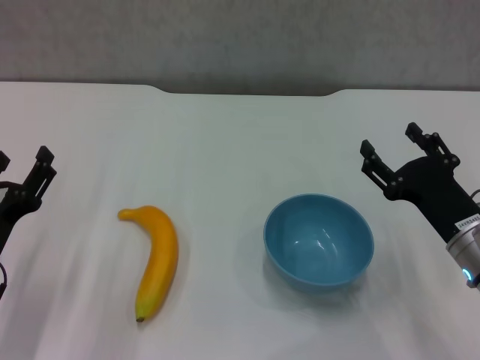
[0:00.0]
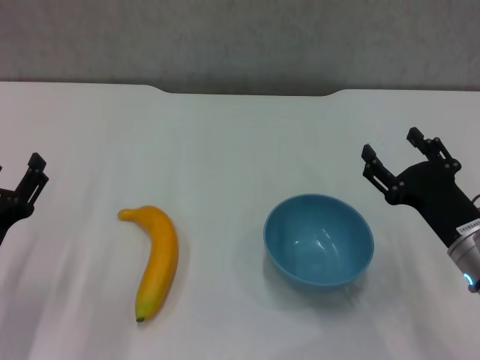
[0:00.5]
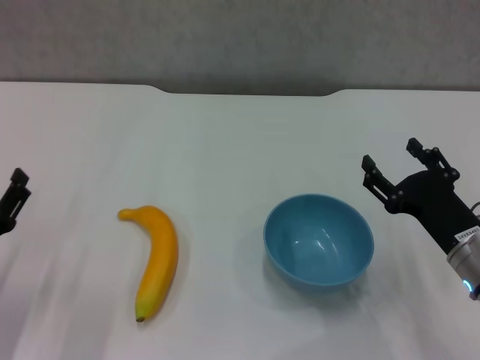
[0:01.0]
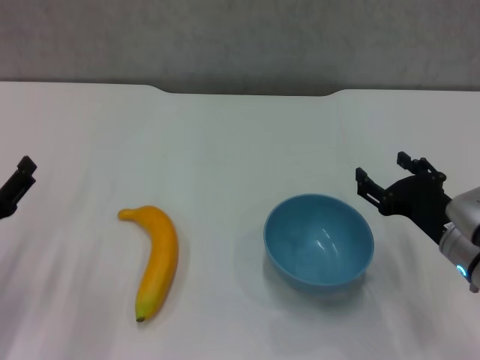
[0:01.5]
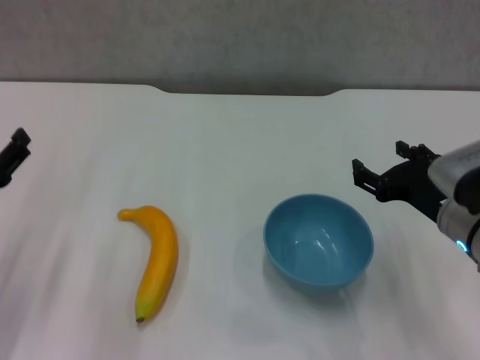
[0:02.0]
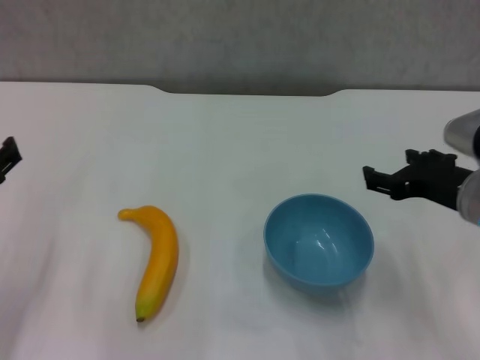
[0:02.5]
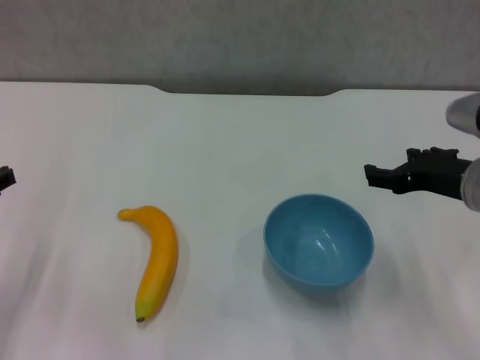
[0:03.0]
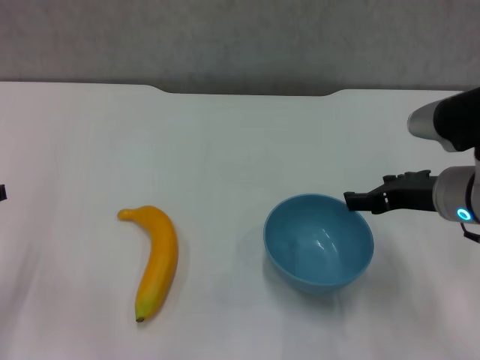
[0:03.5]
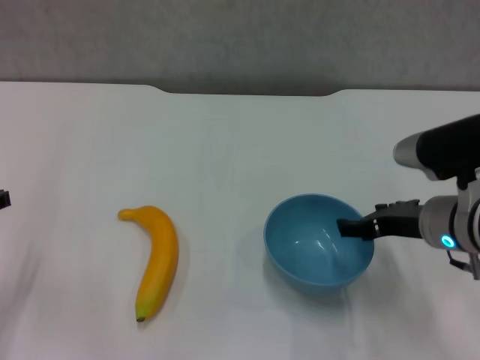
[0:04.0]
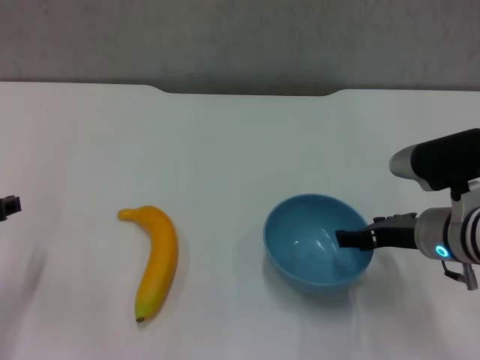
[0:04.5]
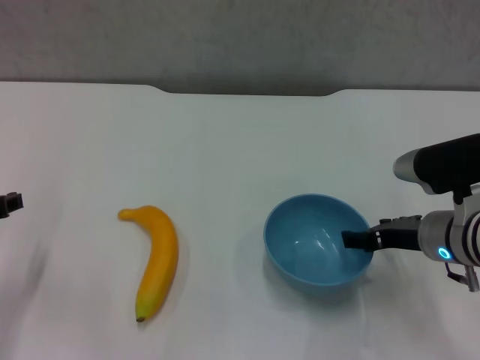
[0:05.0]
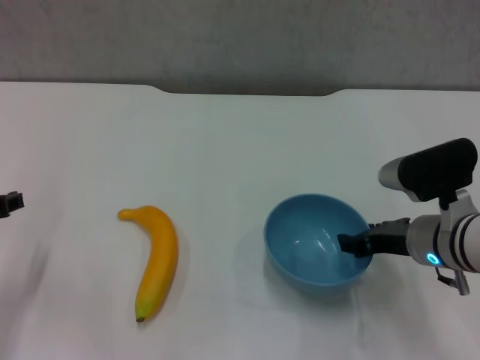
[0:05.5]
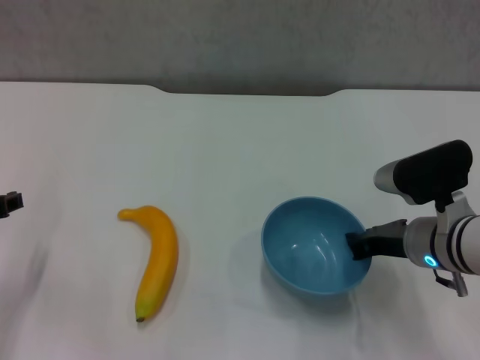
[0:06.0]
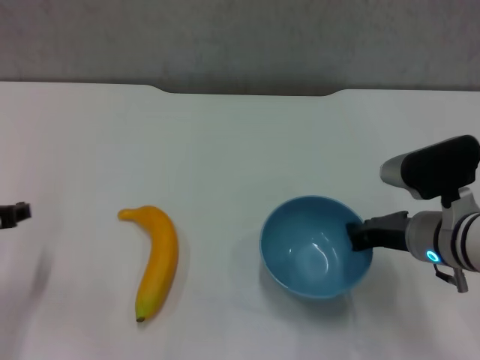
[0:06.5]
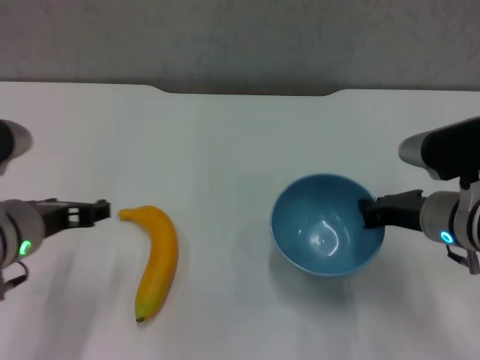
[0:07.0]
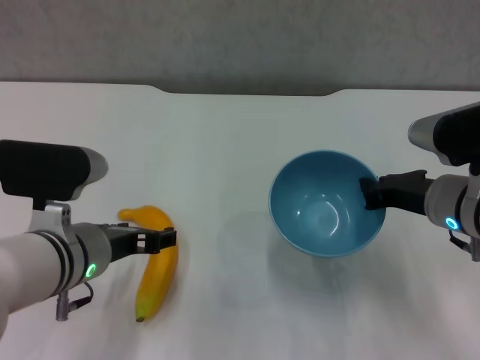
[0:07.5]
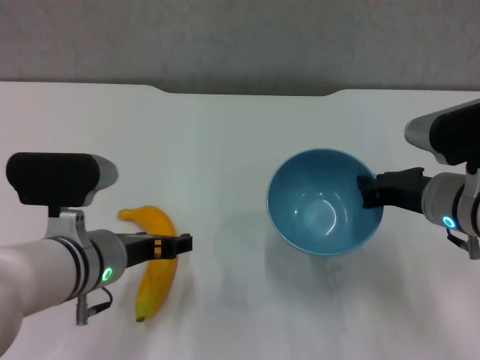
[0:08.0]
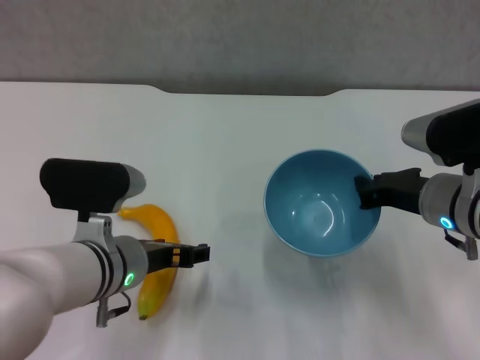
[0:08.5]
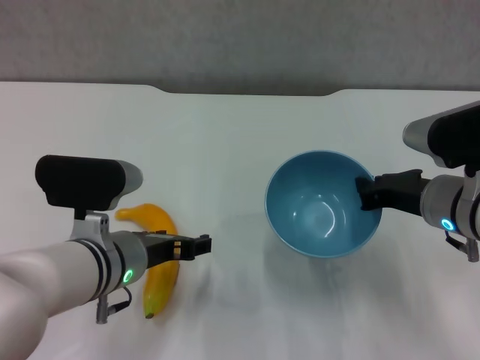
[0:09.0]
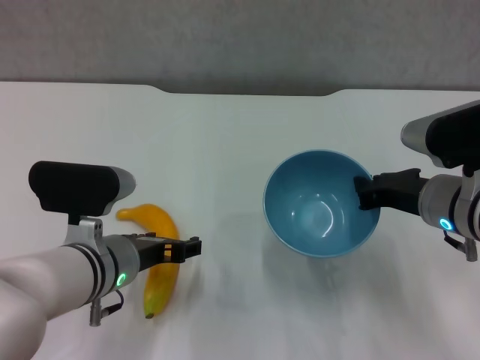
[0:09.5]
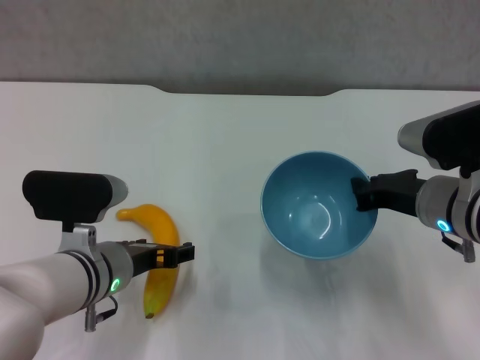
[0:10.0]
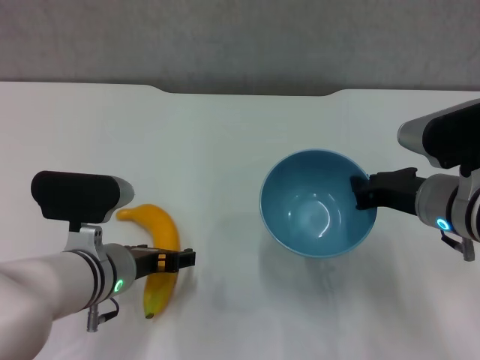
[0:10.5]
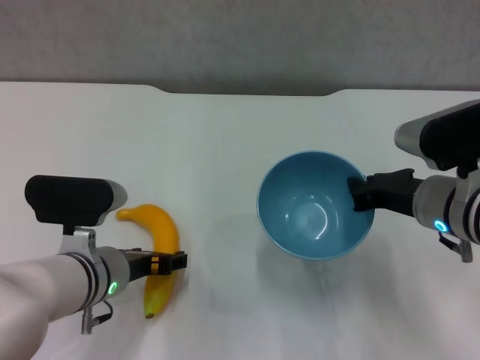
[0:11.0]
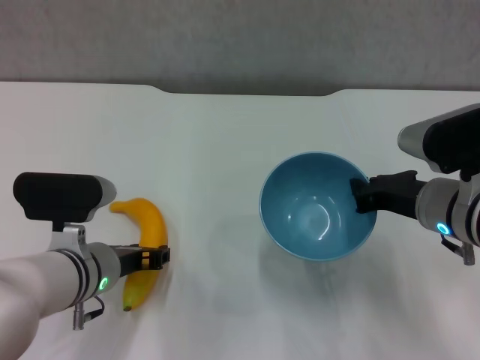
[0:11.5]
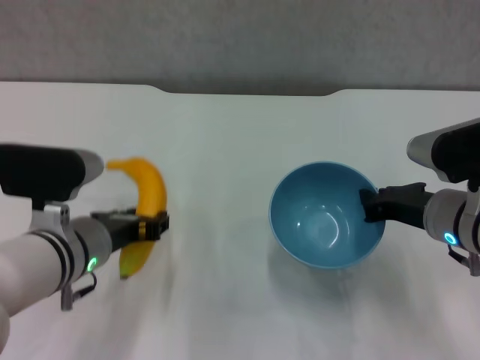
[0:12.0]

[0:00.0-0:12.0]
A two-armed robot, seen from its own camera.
Step, 0:00.0 to 0:06.0: Grasp the blue bowl with right gripper.
Step, 0:06.5 to 0:07.0: Lift the blue bowl with right gripper.
Step, 0:07.5 to 0:11.0: Grasp the banana with left gripper.
0:00.0 to 0:02.0: The right gripper shifts by approximately 5 cm. Meanwhile the left gripper goes about 5 cm upward.
0:02.0 to 0:04.0: The left gripper ends up approximately 5 cm from where it was.
0:04.0 to 0:06.0: The right gripper closes.
0:06.0 to 0:08.0: The left gripper travels to the right by approximately 15 cm.
0:08.0 to 0:10.0: The grippers stay close to where they were, moving slightly.
0:10.0 to 0:12.0: The left gripper closes.

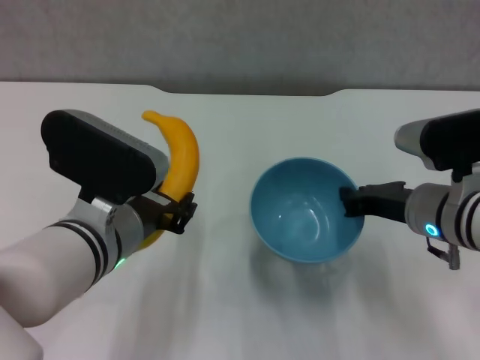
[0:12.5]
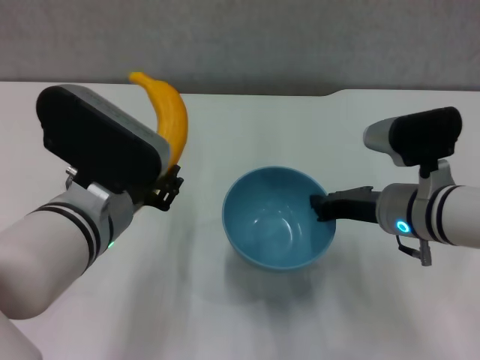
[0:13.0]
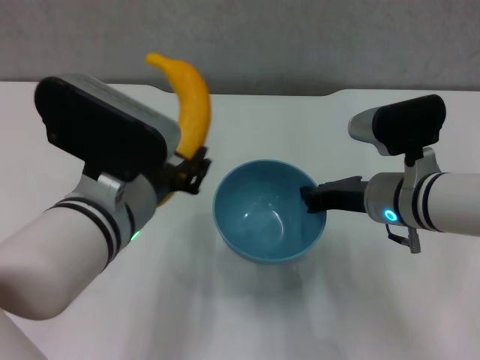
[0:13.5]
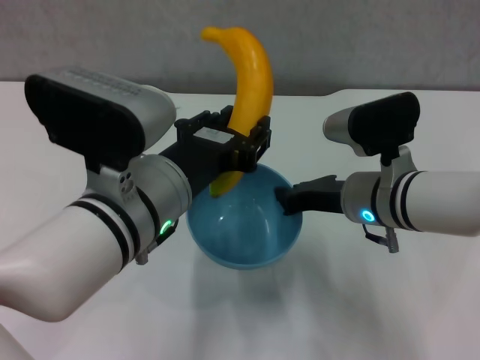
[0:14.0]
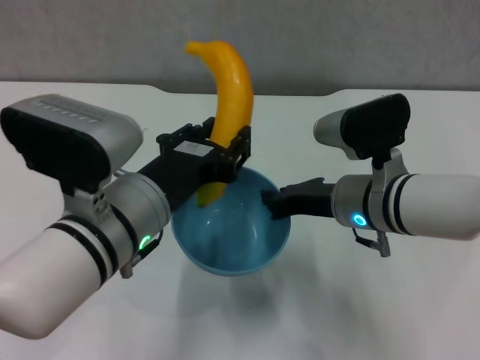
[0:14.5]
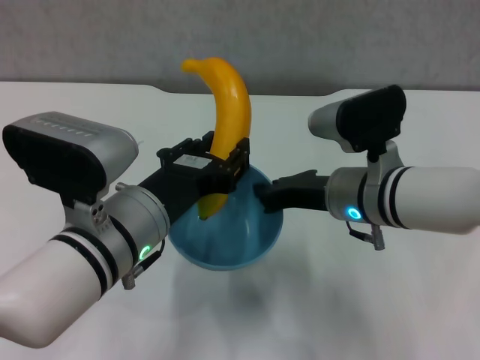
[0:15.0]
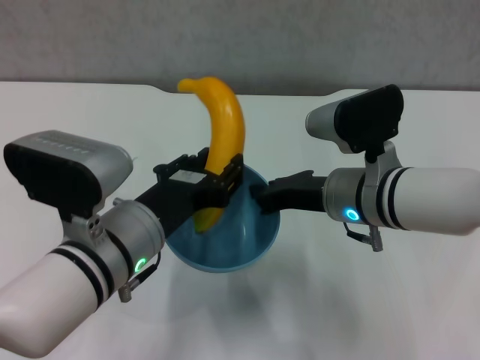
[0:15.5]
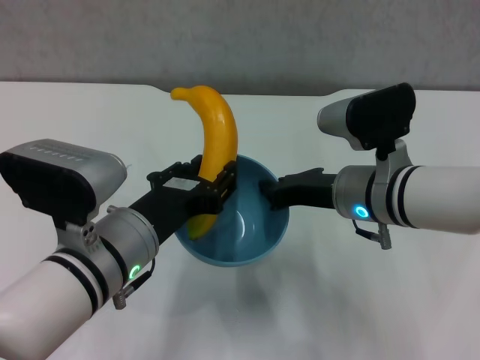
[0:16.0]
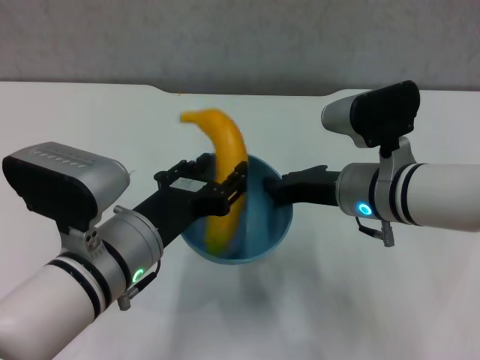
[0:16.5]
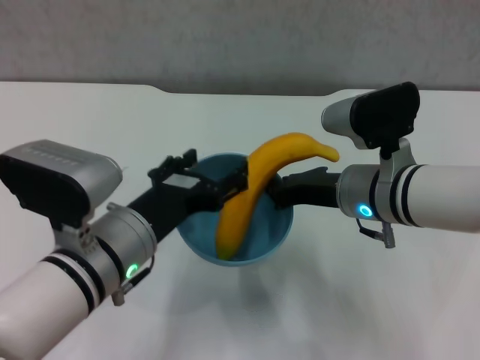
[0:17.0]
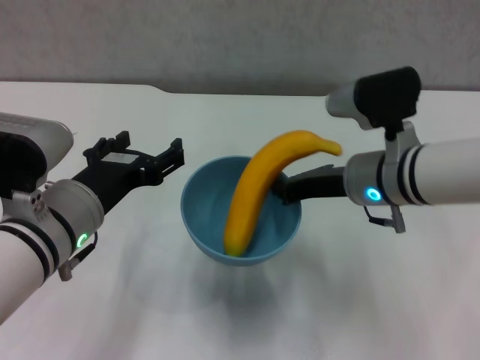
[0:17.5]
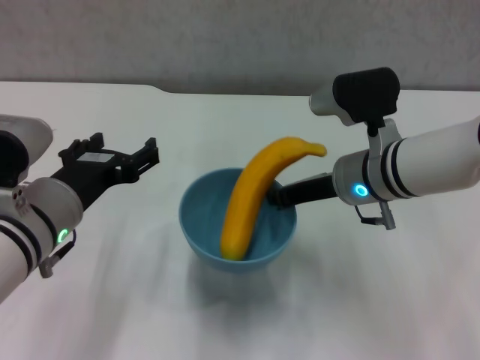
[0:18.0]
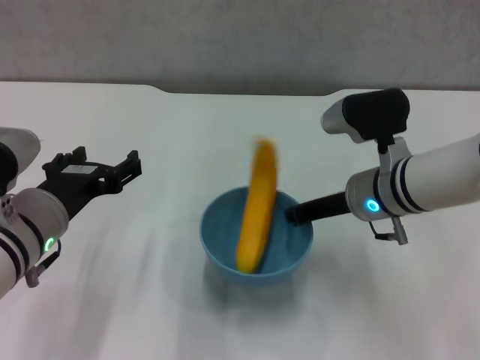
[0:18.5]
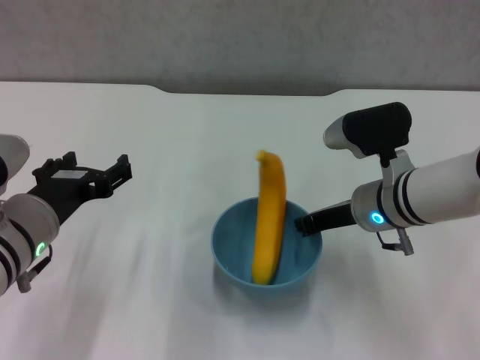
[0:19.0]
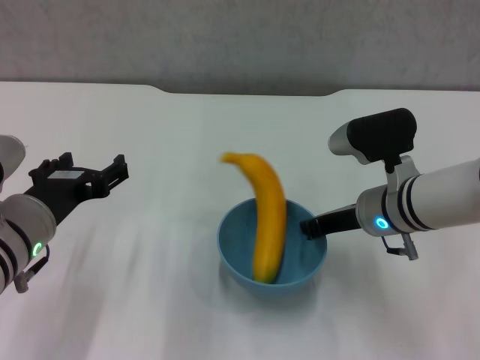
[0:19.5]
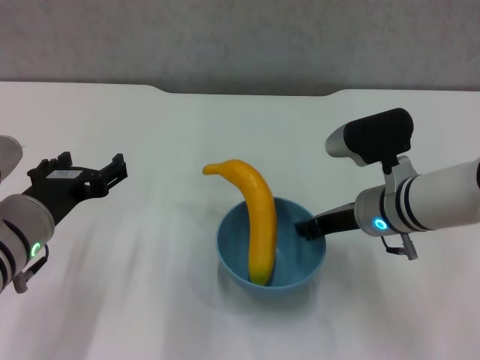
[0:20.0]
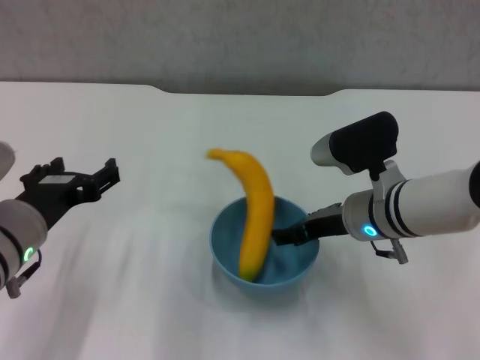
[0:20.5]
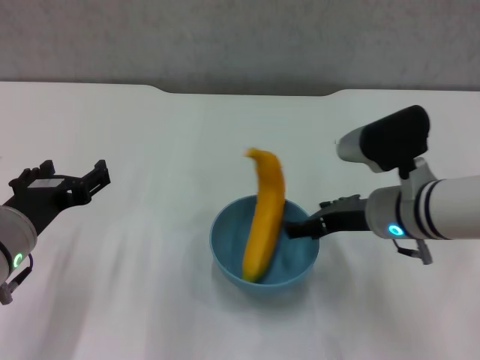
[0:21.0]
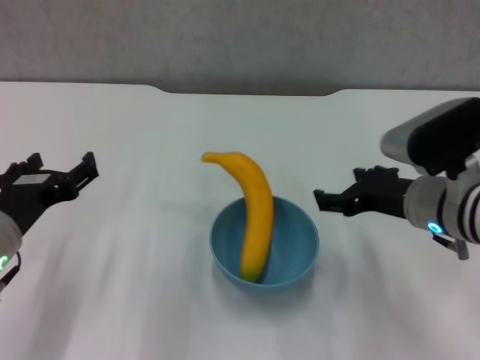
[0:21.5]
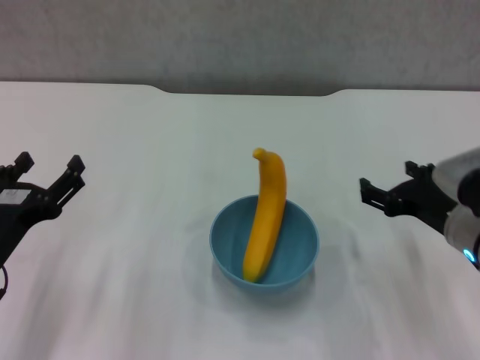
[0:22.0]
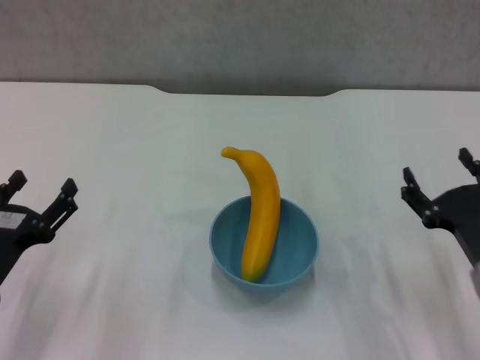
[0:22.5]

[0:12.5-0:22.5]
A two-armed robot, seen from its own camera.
Step, 0:12.5 to 0:16.5: Place the banana in the blue bowl with left gripper.
Step, 0:17.0 to 0:21.0: Place the bowl on the table with right gripper.
0:12.5 to 0:14.5: The right gripper shifts about 5 cm to the left.
0:16.5 to 0:18.5: The left gripper heads to the left, covering approximately 10 cm, and opens up.
0:18.5 to 0:20.5: The right gripper opens its fingers.
0:20.5 to 0:22.5: The left gripper moves downward and to the left, some 10 cm, while the right gripper travels backward and to the right by about 15 cm, and opens up.

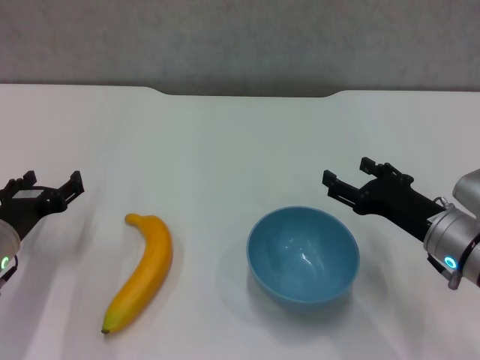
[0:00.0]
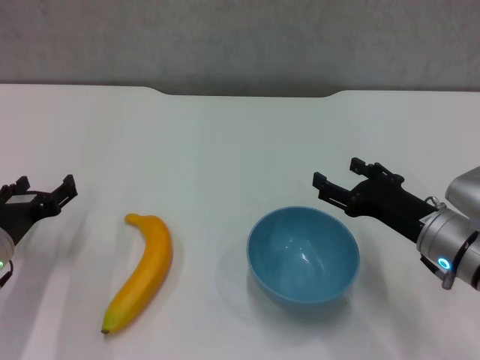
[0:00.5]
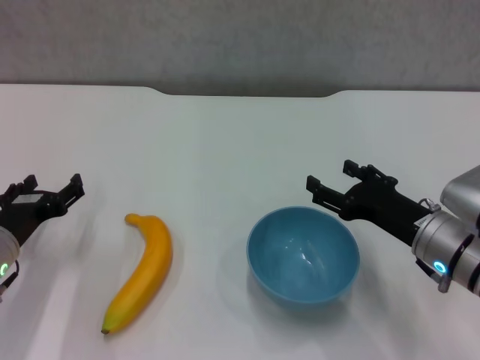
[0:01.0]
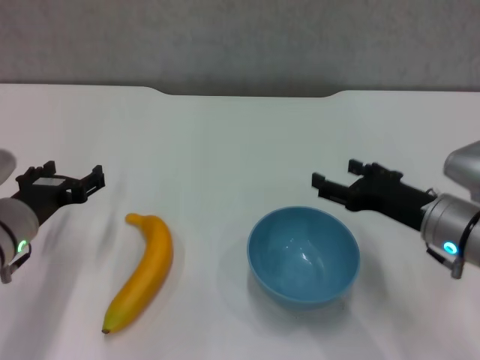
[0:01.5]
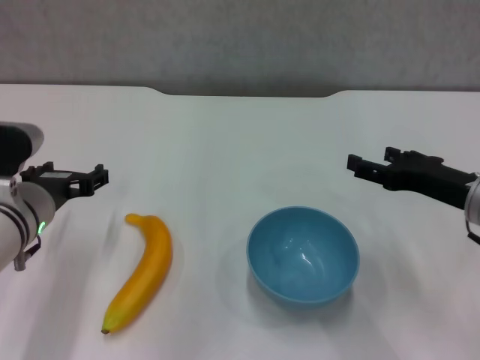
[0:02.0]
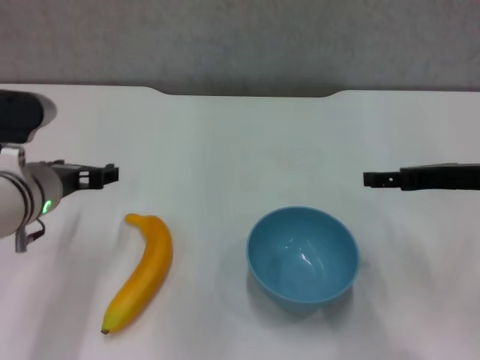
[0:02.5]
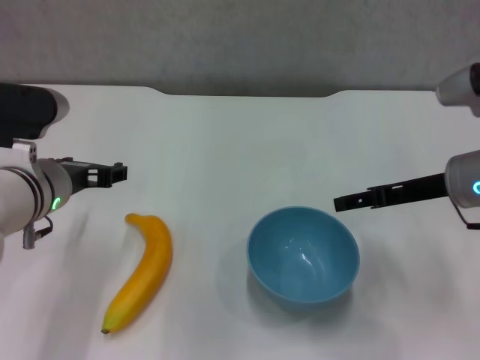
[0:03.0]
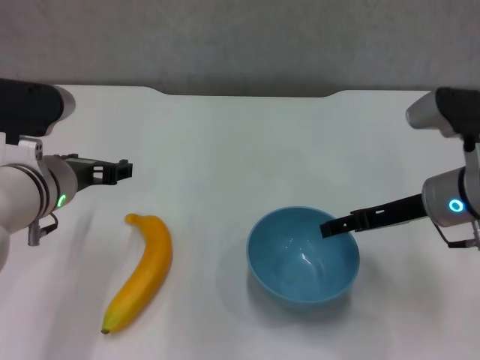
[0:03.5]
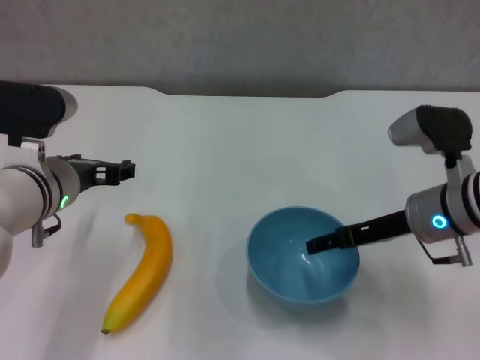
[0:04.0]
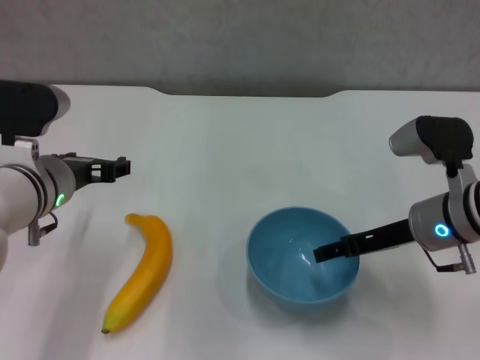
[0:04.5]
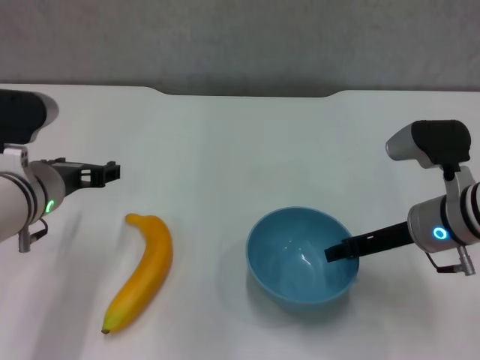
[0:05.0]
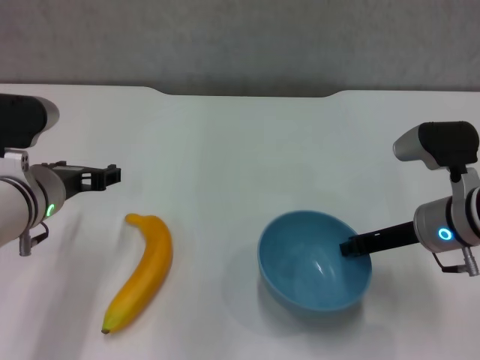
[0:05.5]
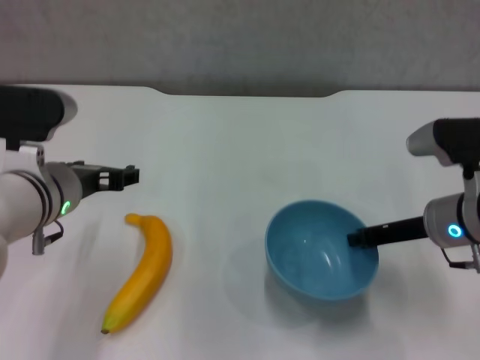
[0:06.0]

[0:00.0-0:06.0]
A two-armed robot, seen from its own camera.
Step, 0:00.0 to 0:05.0: Grasp the blue bowl with right gripper.
0:00.0 to 0:02.0: The left gripper shifts about 10 cm upward and to the right, while the right gripper goes about 5 cm upward.
0:02.0 to 0:04.0: The right gripper moves roughly 5 cm.
0:04.0 to 0:06.0: The right gripper closes its fingers.
